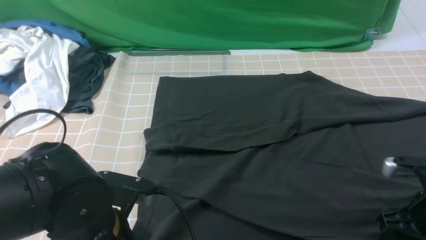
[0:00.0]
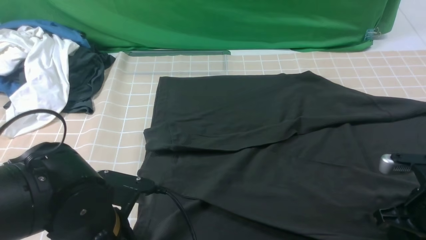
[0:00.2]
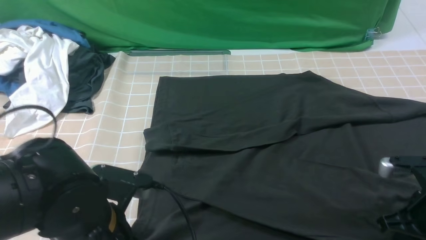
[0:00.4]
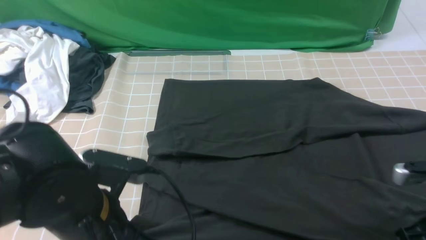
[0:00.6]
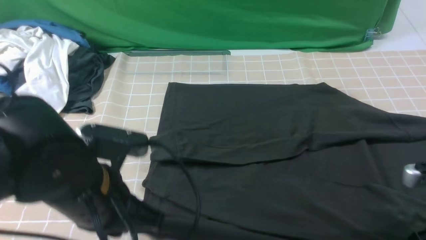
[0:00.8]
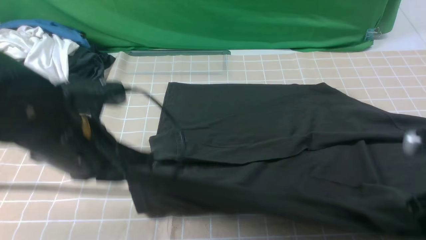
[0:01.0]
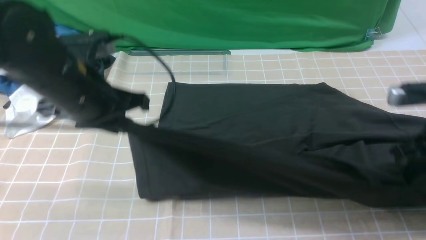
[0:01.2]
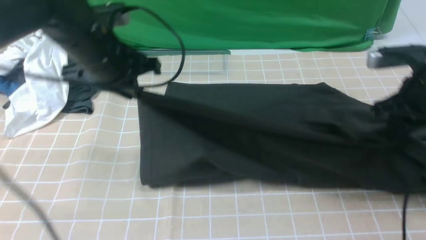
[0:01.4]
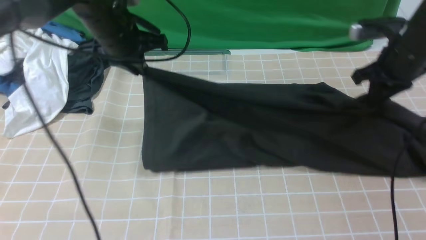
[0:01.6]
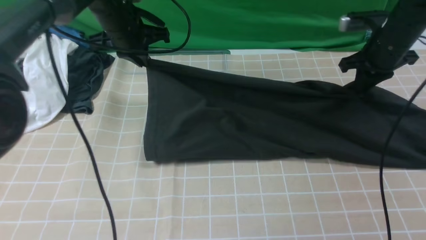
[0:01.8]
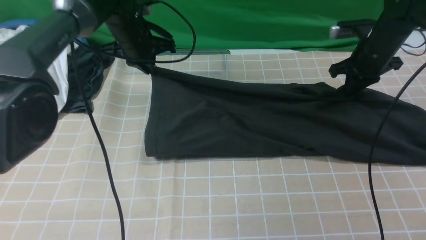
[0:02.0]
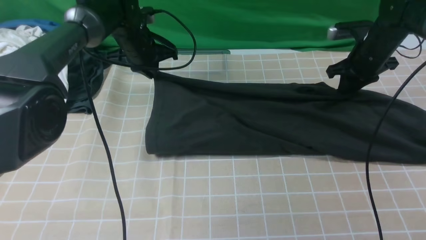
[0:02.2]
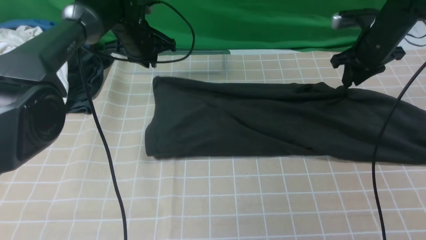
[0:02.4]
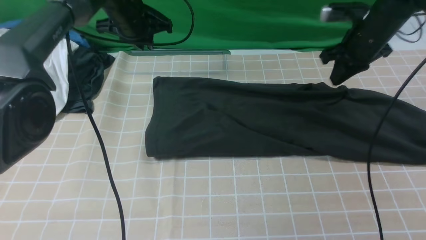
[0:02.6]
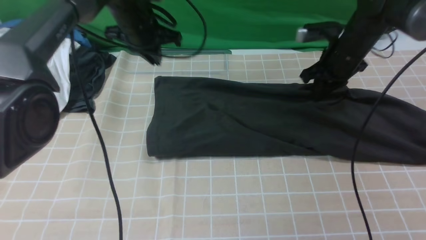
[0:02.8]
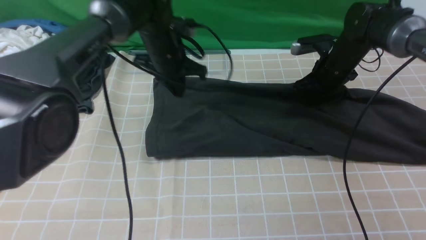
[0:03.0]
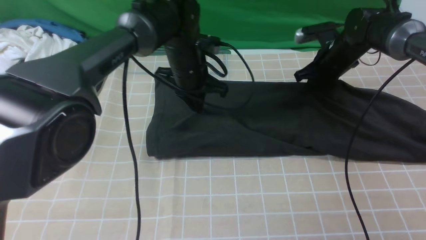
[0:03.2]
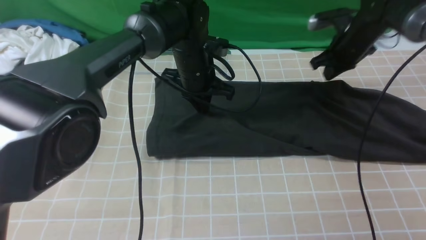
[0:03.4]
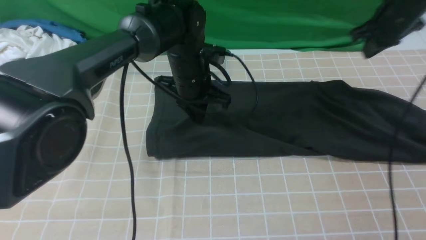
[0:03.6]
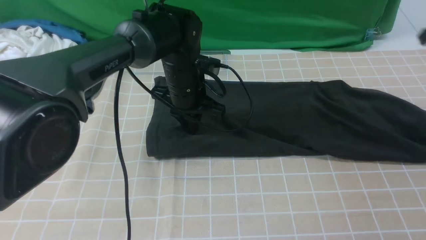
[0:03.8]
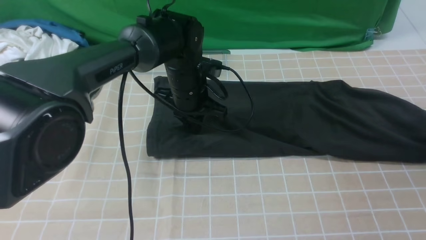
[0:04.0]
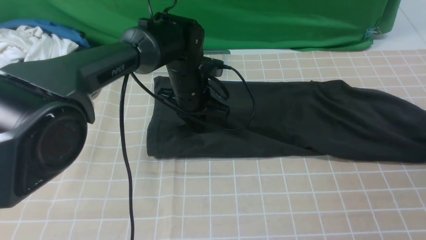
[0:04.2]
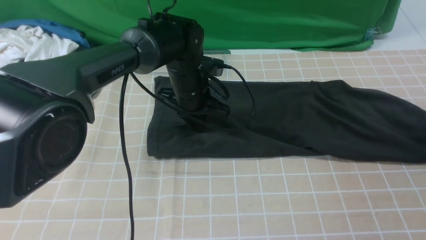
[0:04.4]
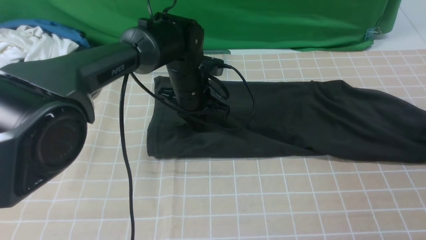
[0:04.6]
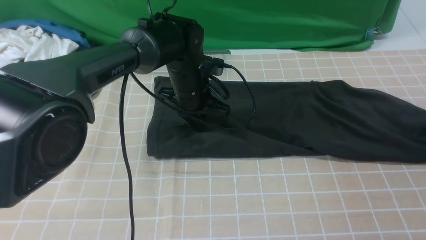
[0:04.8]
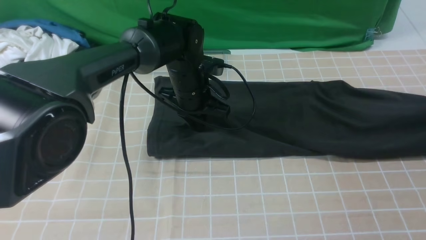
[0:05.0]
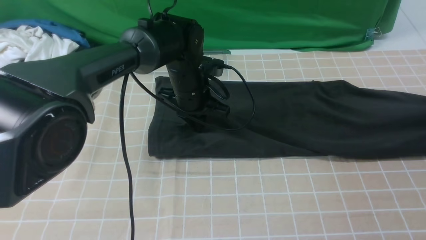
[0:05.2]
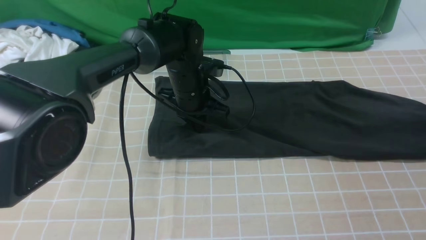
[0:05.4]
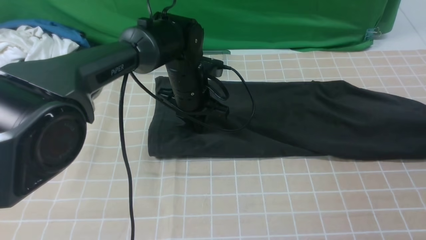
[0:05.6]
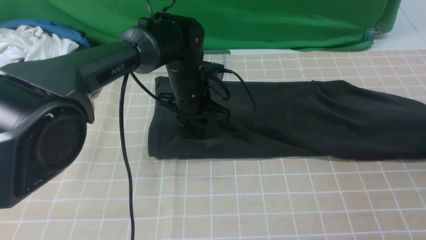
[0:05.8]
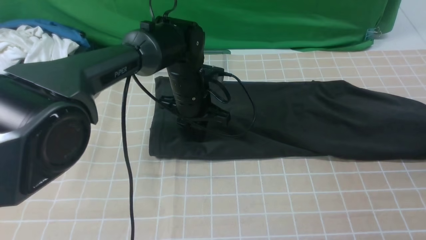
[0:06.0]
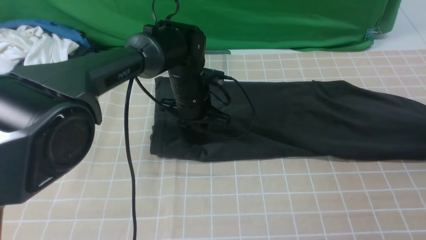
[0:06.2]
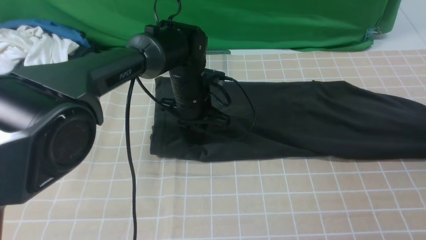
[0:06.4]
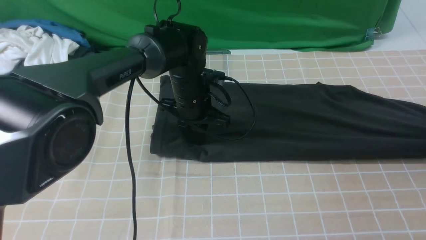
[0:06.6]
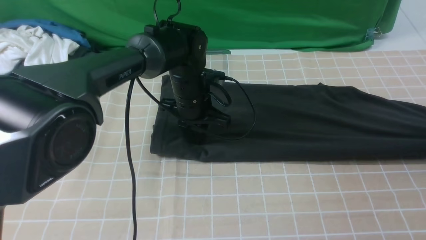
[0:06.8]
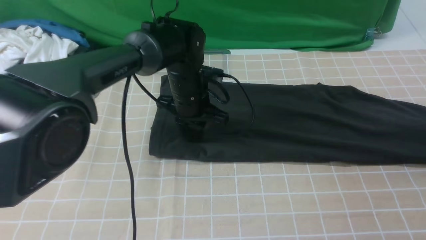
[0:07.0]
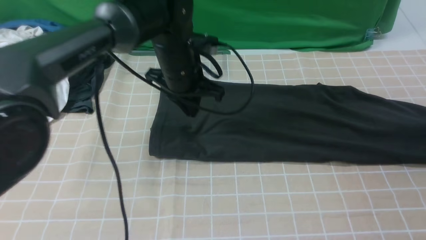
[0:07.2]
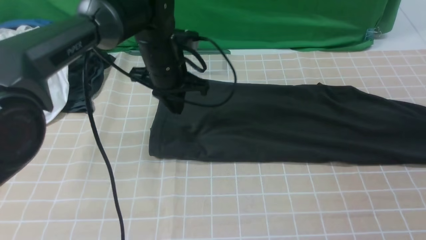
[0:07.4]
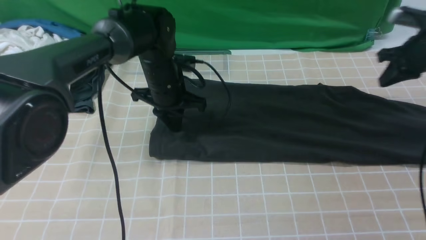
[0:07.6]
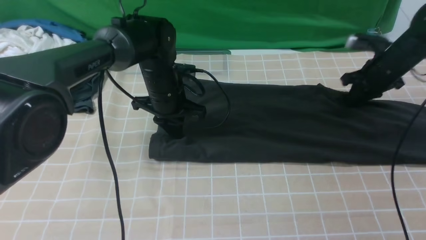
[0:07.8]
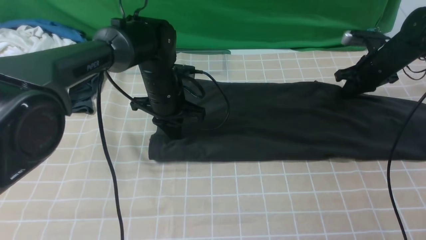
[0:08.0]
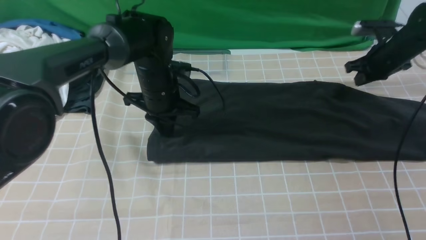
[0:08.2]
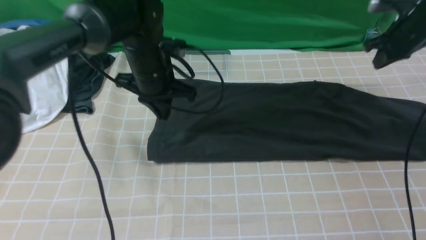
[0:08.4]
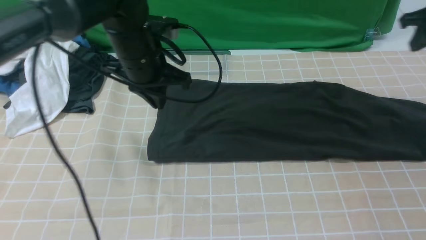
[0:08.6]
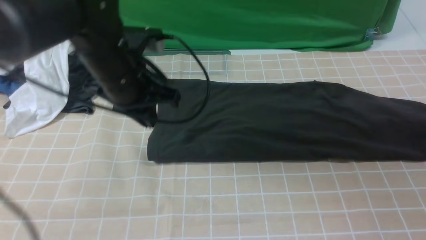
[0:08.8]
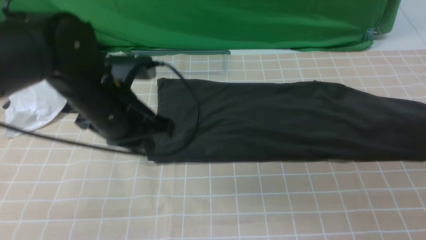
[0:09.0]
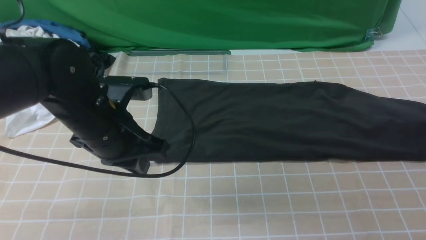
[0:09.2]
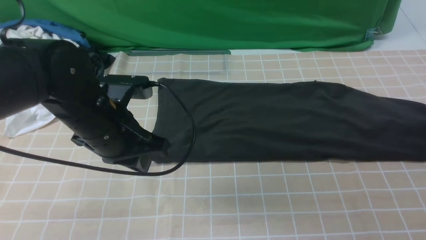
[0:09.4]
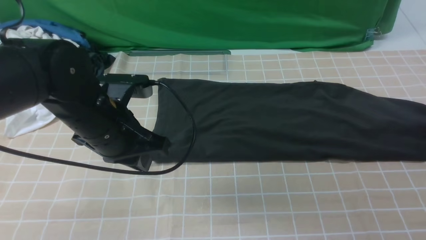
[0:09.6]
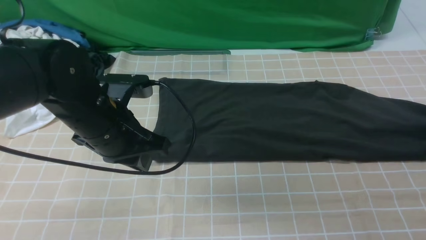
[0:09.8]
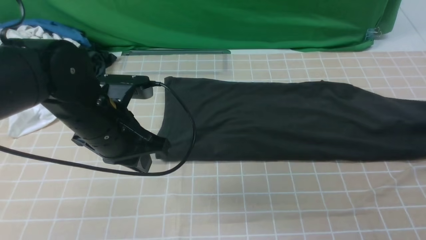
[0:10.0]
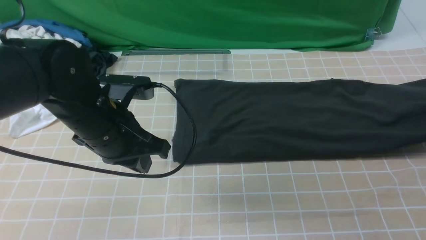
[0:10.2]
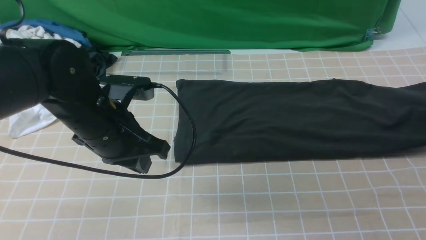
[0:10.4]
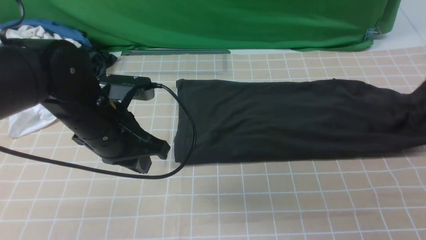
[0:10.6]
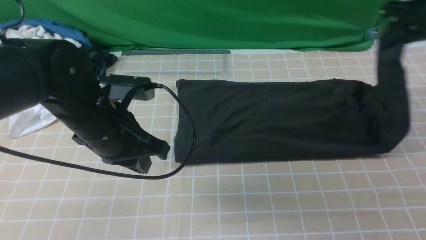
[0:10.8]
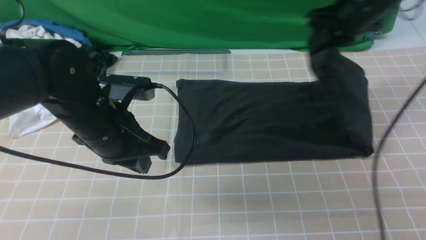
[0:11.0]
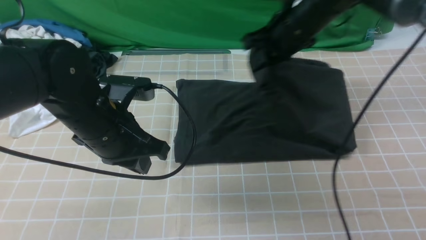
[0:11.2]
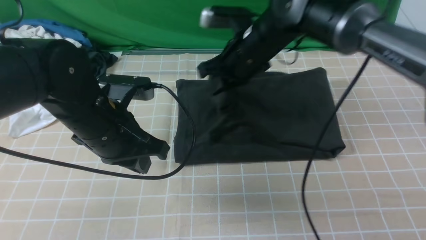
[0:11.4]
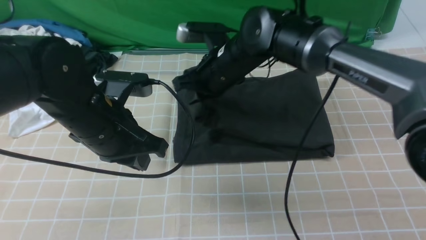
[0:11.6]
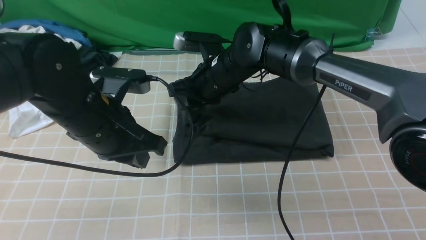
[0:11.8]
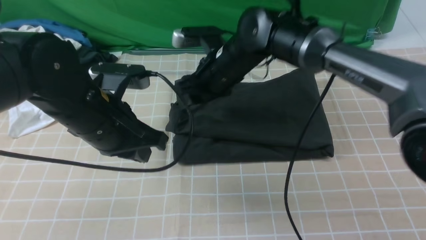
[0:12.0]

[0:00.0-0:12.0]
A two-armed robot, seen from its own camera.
Step, 0:00.4 to 0:02.4: use both arms to drag the lower edge of the fabric forward and fold it over the upper edge.
Step, 0:02.6 to 0:09.8: use the right arm to clamp the right edge of the fabric.
Step, 0:10.0 to 0:12.0: use the right arm to drag the right edge of the fabric to the left and folds it over the left edge.
0:00.0 to 0:01.6: The right gripper moves forward and upward, roughly 25 cm, and closes. Meanwhile the left gripper travels forward by approximately 30 cm.
0:01.6 to 0:03.0: The right gripper moves forward, downward and to the left, approximately 15 cm; the left gripper moves to the right and downward, roughly 10 cm.
0:03.0 to 0:04.4: The right gripper is displaced to the right and backward by some 30 cm, and opens up, while the left gripper moves approximately 10 cm.
0:04.4 to 0:06.0: The right gripper closes, then opens again.
0:06.0 to 0:07.6: The right gripper heads to the left and forward, covering approximately 15 cm, and closes.
0:07.6 to 0:09.0: The left gripper shifts some 15 cm backward and upward. The right gripper goes about 15 cm to the right and backward, and opens up.
0:09.0 to 0:10.4: The right gripper closes its fingers.
0:10.4 to 0:12.0: The right gripper travels to the left by some 40 cm, and opens its fingers.

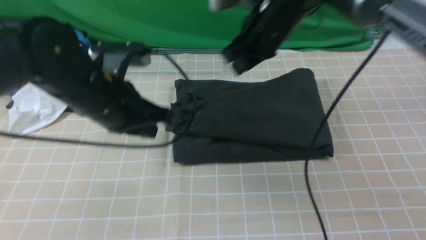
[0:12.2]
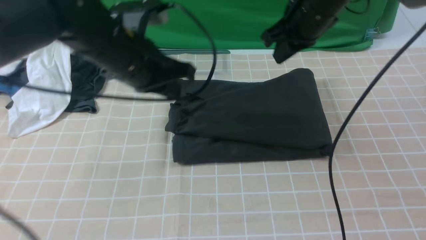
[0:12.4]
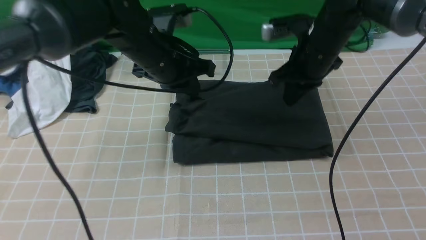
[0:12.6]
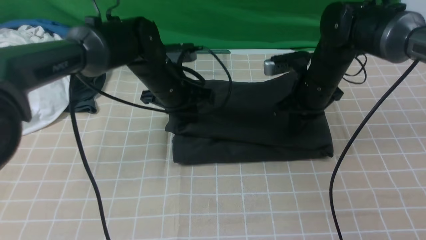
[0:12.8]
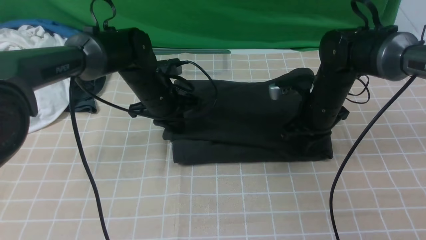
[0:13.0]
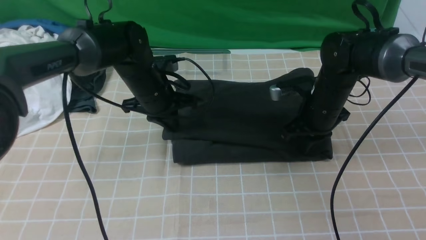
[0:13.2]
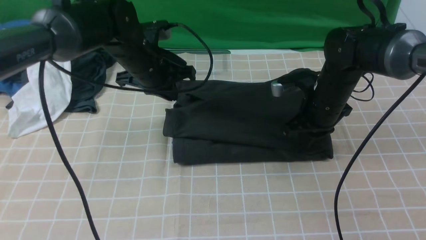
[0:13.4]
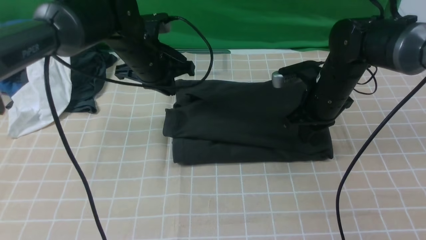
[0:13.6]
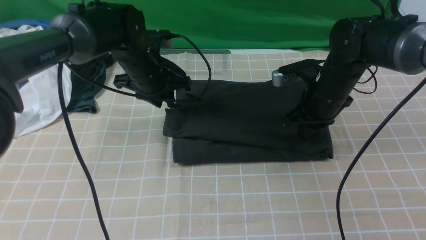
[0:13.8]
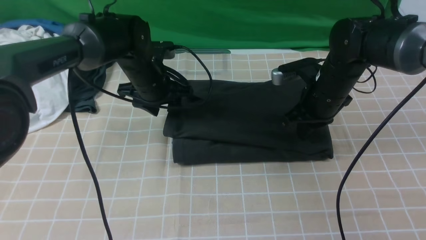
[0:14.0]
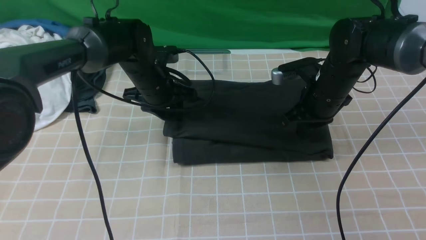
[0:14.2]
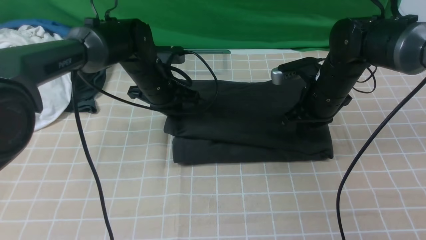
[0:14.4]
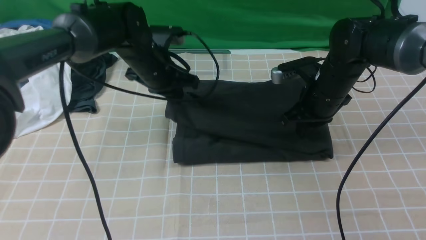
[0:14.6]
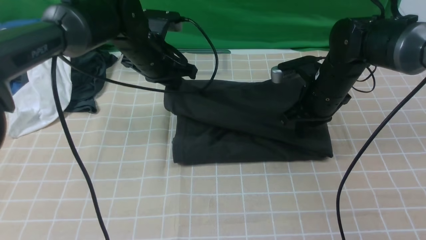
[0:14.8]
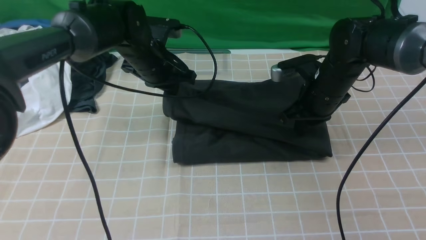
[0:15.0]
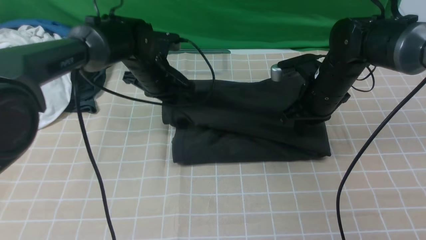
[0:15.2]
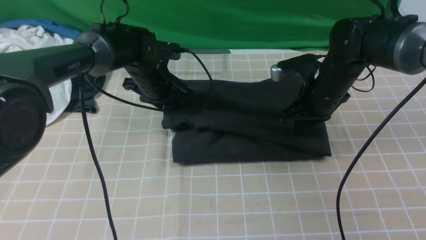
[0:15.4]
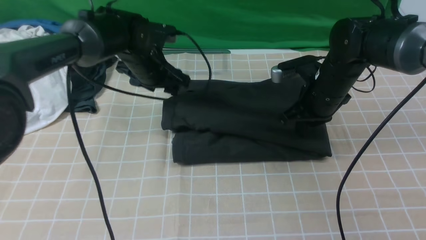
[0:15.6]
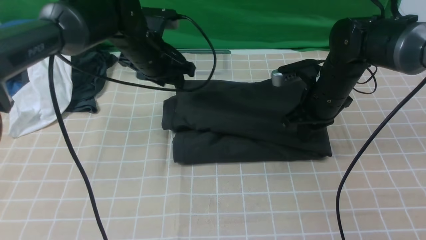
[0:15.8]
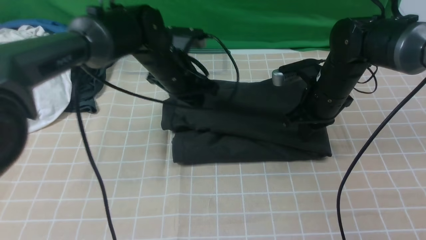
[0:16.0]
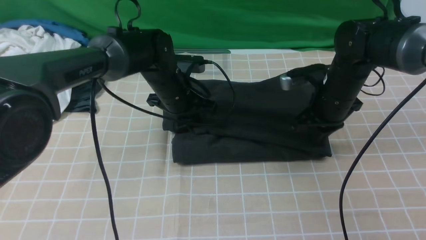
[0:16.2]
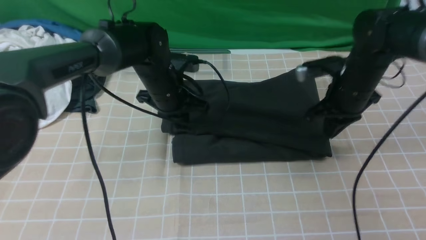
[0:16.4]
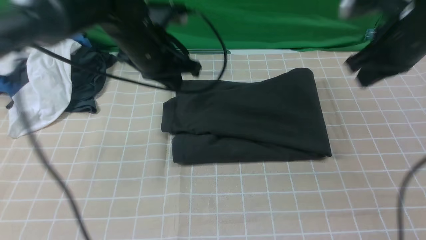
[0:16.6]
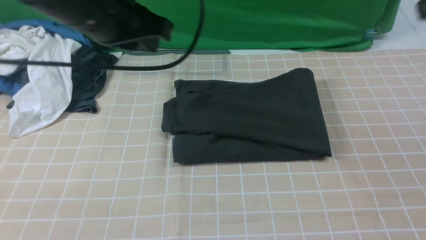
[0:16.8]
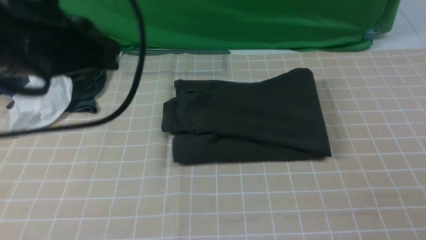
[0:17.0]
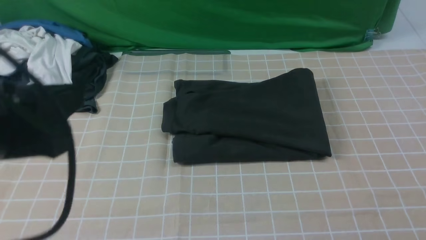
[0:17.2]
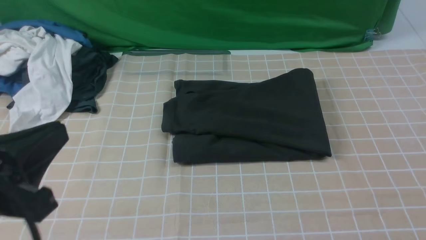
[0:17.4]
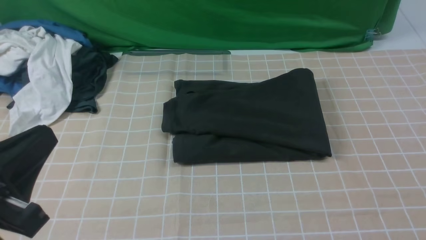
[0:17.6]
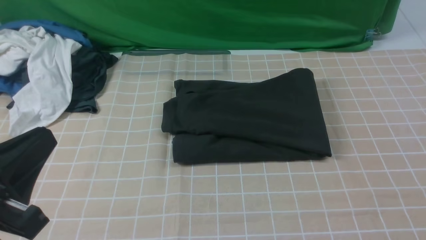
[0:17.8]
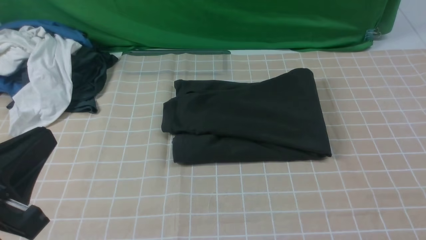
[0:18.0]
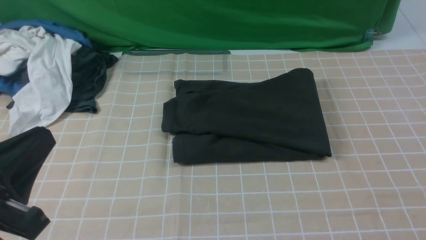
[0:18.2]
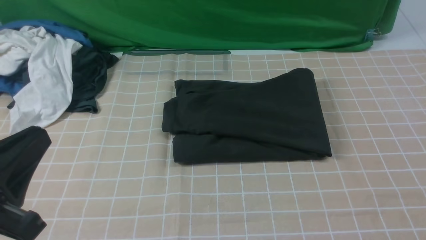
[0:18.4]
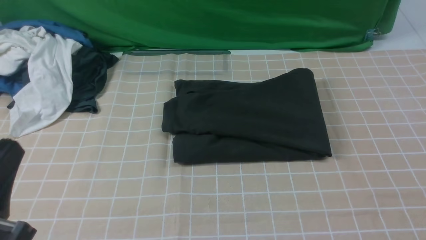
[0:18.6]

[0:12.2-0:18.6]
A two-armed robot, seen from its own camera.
0:12.2 to 0:13.8: The left gripper shifts about 15 cm forward and downward, and opens, while the right gripper goes some 15 cm downward and to the right.
0:13.8 to 0:15.4: The left gripper closes and opens again.
0:15.4 to 0:17.0: The left gripper is displaced backward and upward by about 35 cm, and closes up; the right gripper goes approximately 40 cm backward, upward and to the right.
0:17.0 to 0:18.6: The left gripper travels downward, backward and to the left by about 20 cm.
